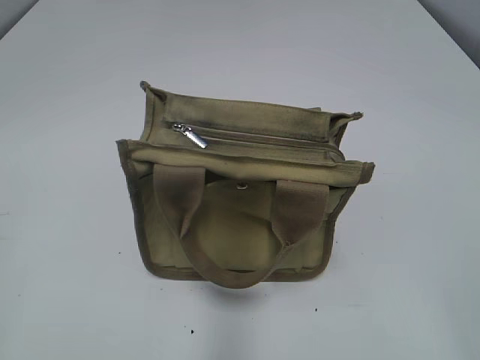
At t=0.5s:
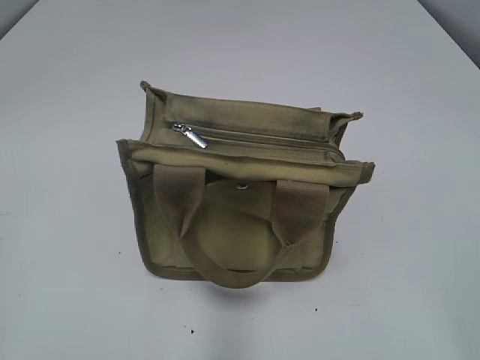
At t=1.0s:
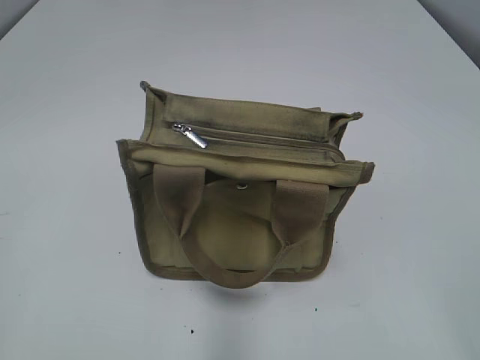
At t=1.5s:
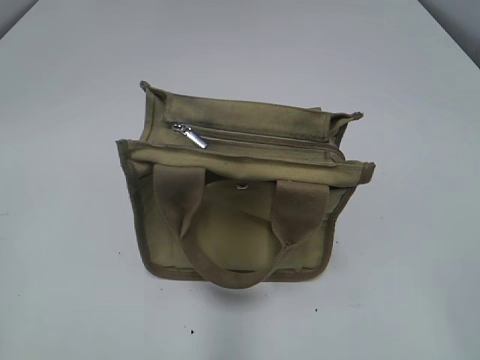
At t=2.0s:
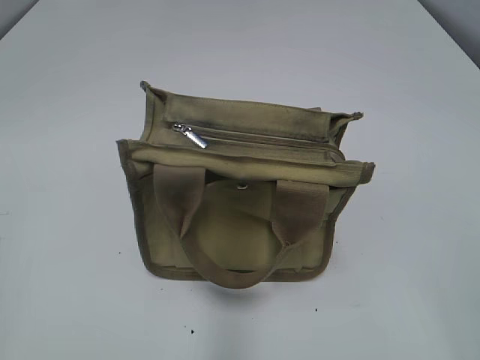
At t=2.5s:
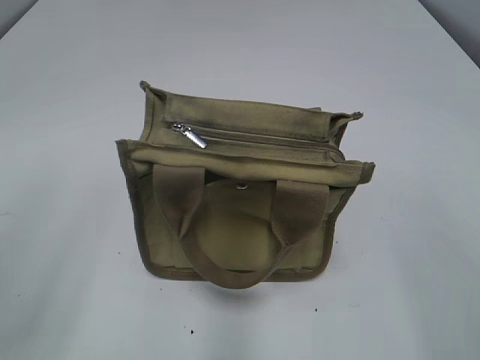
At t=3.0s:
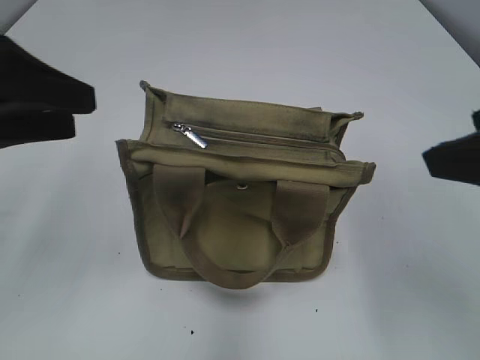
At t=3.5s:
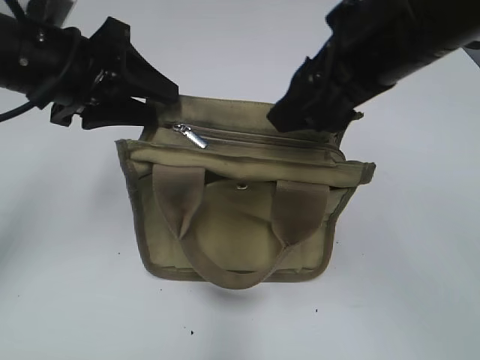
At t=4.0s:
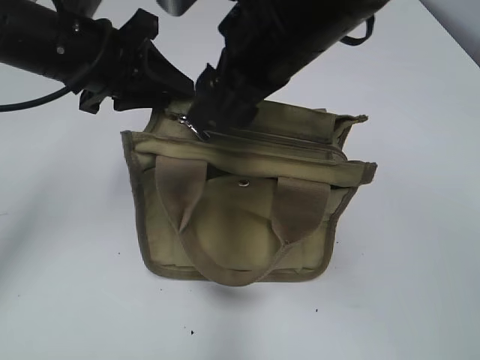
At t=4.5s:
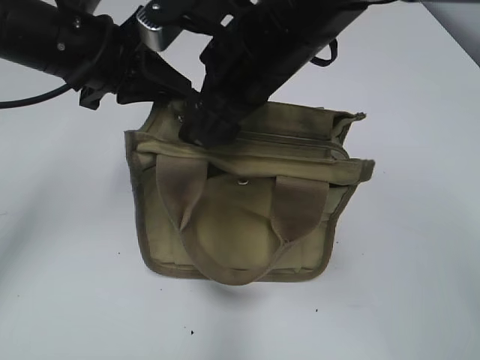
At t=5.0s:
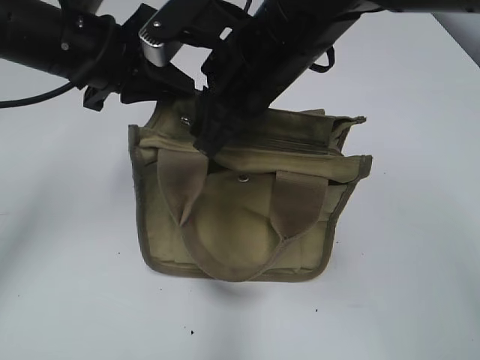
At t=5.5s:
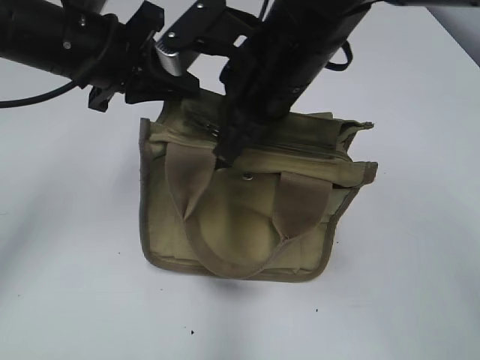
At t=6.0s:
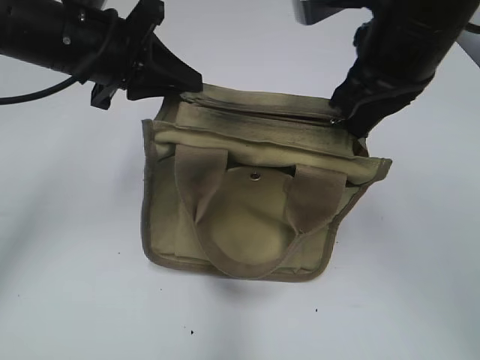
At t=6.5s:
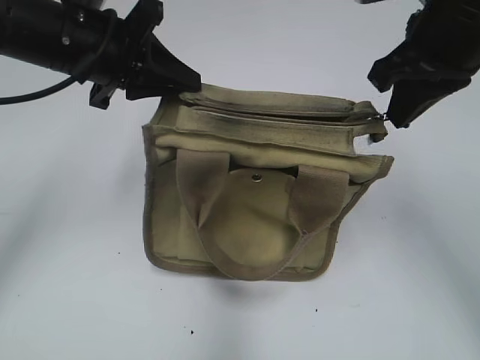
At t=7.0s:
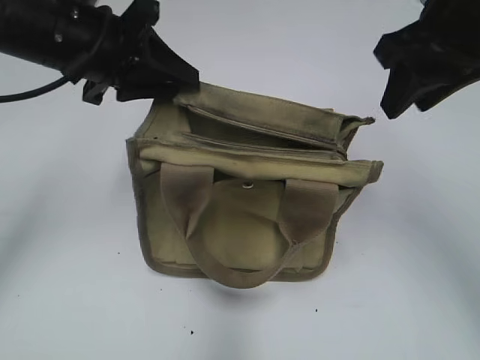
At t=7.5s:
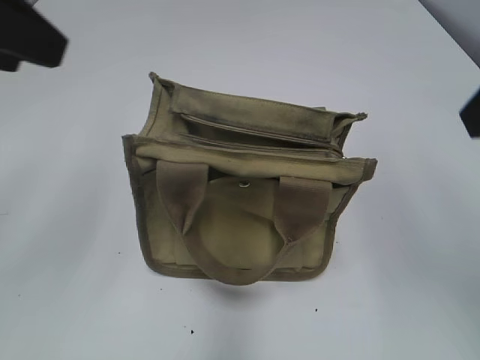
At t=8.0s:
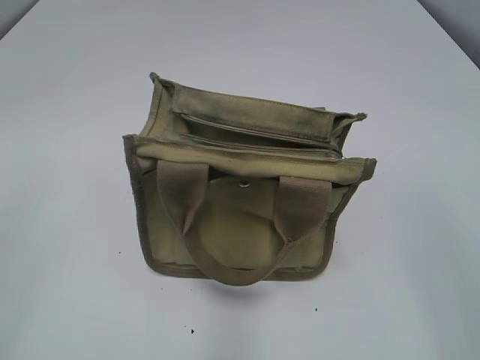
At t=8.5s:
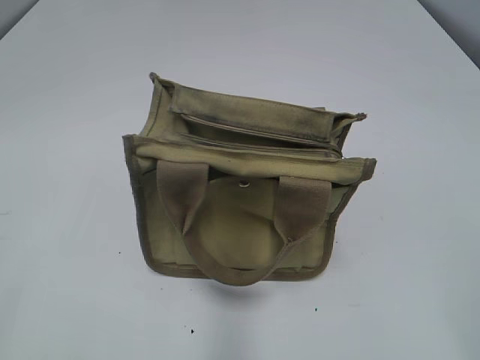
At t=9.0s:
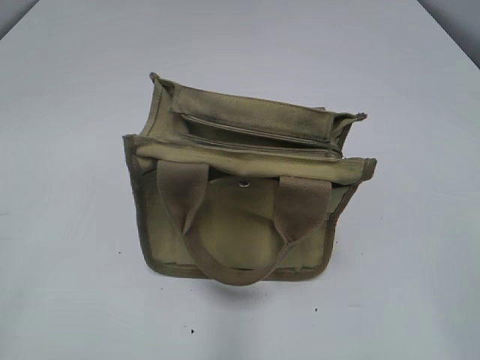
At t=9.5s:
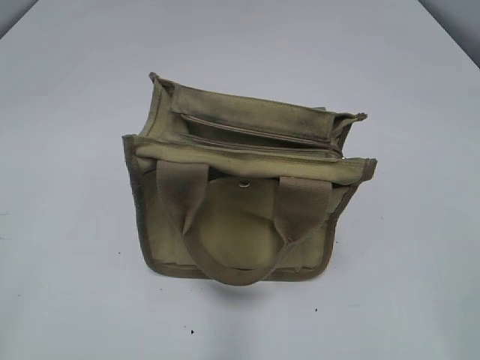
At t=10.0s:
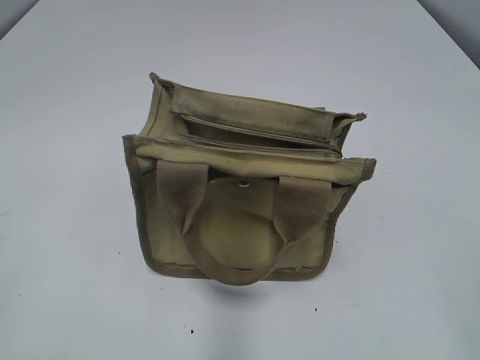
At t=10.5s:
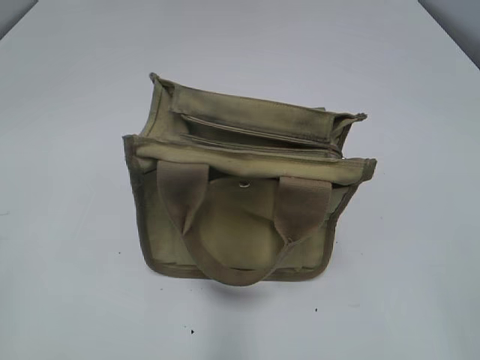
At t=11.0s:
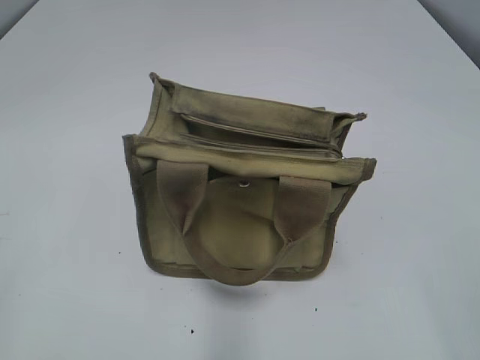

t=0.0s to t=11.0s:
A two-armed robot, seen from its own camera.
Step, t=0.0s to t=6.5s: Pull open the zipper with your right hand.
t=2.0s to t=3.5s: The left gripper travels forward and to the right by approximately 35 cm, and opens its fingers. The right gripper moves forward and to the left, some 30 cm.
t=3.5s to t=5.5s: The left gripper closes; the right gripper shifts roughly 10 cm to the left, downward and forward, and closes its fingers.
t=5.5s to t=7.5s: The right gripper heads to the right, upward and backward, covering roughly 25 cm, and opens its fingers. Meanwhile the left gripper heads upward, backward and to the left, covering some 15 cm, and opens.
t=7.5s to t=9.0s: The left gripper is displaced backward, to the left and downward by roughly 25 cm.
